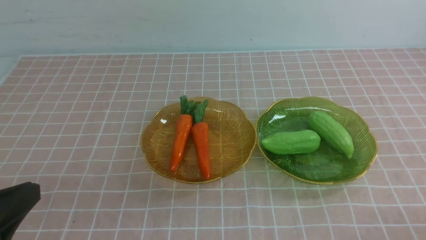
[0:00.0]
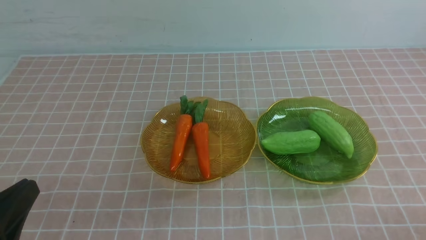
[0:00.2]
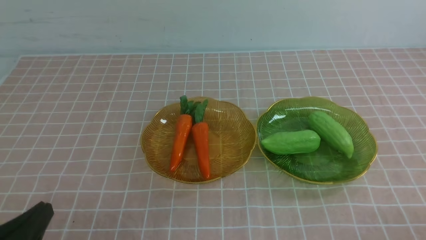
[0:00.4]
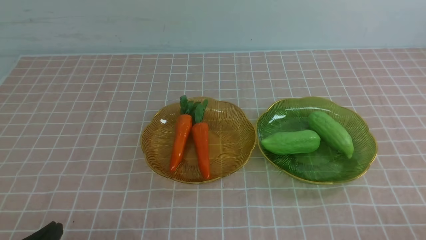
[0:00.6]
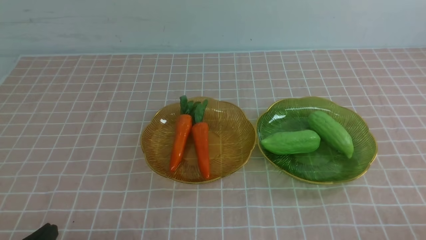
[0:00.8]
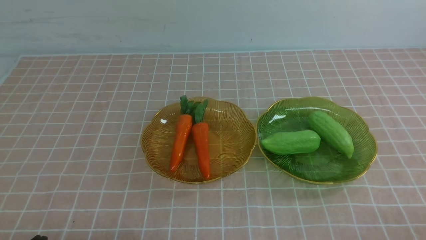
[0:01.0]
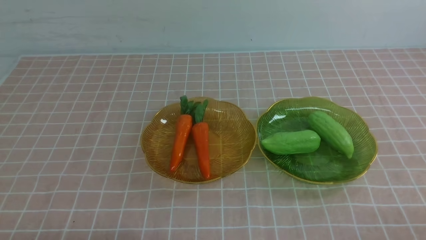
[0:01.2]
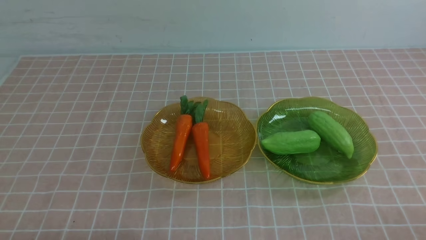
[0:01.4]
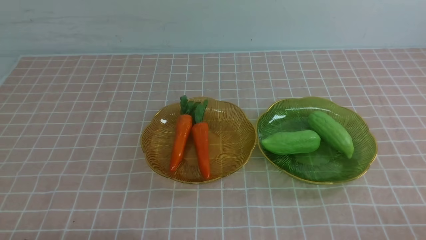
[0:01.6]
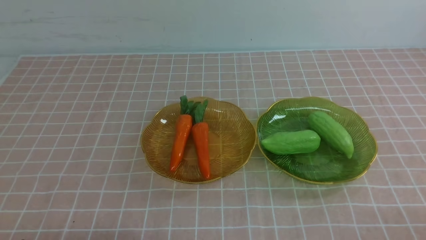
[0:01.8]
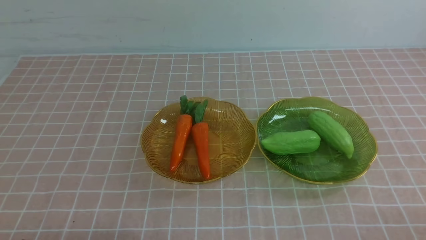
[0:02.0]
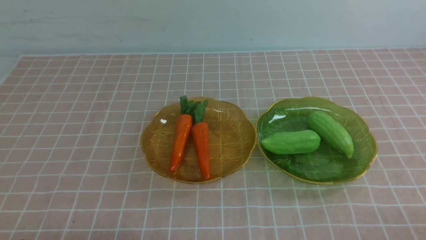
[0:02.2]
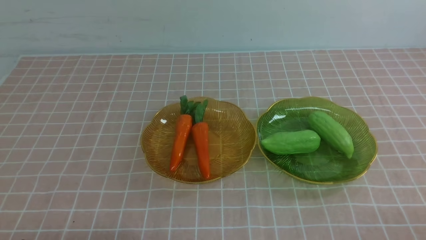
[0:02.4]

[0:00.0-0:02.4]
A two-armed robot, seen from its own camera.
0:00.0 to 0:01.2: The left gripper travels downward by approximately 10 cm.
0:01.2 to 0:02.4: Both grippers stay put.
